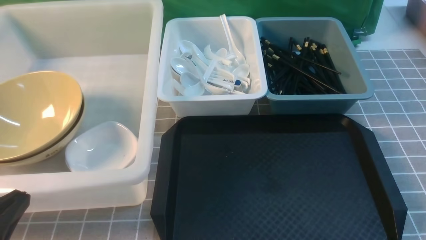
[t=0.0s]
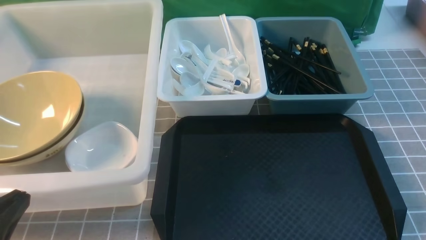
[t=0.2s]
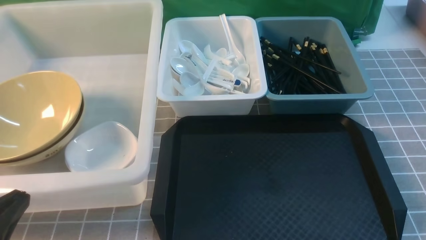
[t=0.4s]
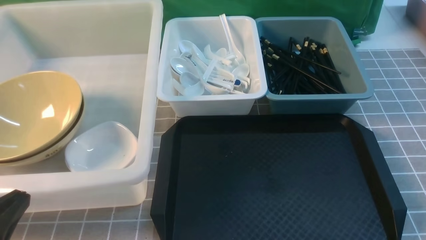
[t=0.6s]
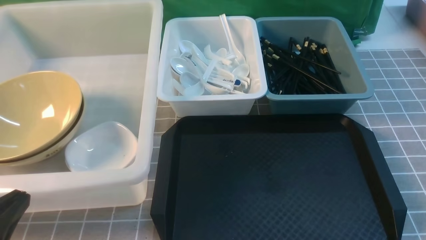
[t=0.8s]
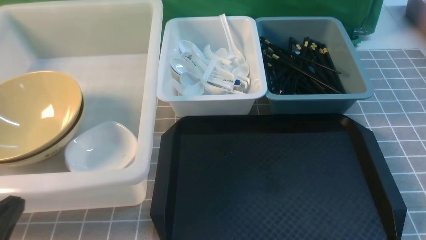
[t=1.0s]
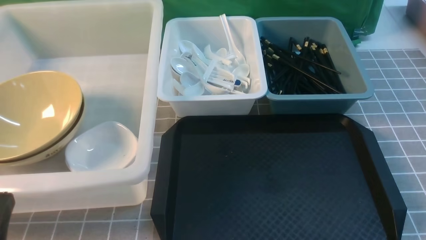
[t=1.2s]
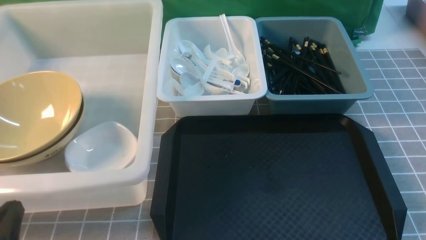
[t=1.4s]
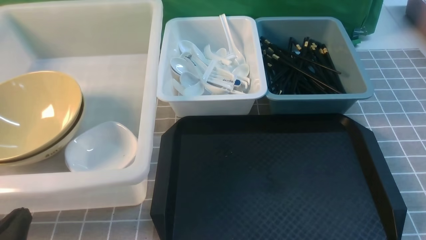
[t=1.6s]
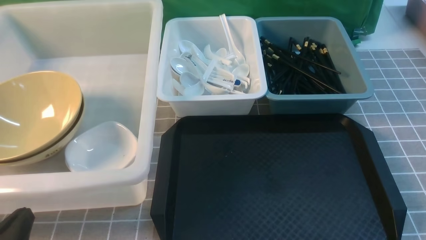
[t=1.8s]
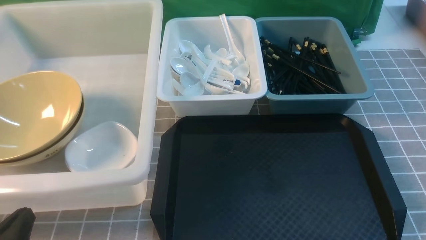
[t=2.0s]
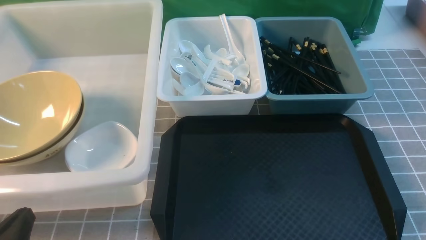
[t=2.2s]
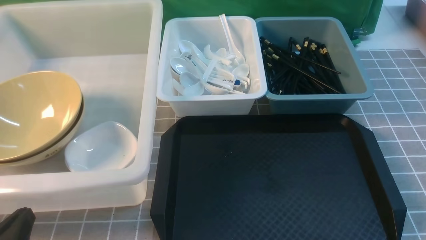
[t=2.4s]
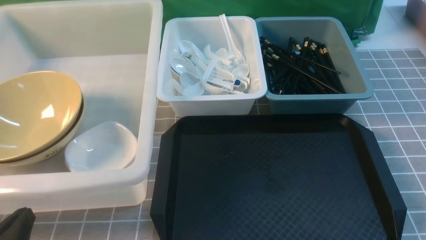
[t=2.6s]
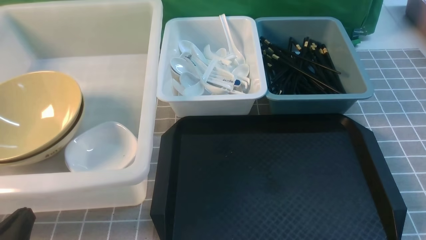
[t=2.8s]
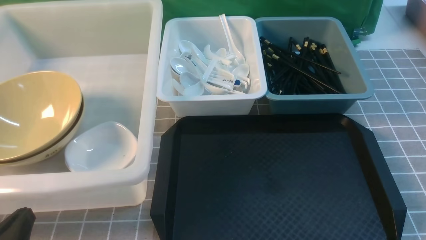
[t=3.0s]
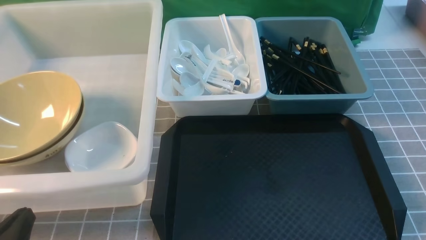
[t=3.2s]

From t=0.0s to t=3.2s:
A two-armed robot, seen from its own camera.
Task of the whole recording: on grey table put chopsticks spoon bowls plates into blue grey white boxes.
From t=0.0s to t=1.6s: The left gripper shifts approximately 10 cm downward.
From t=1.6s to t=3.2s: The two grippers keep their place.
